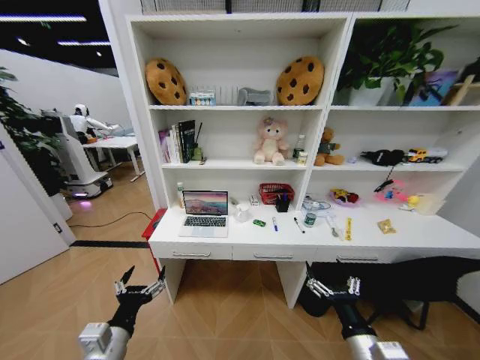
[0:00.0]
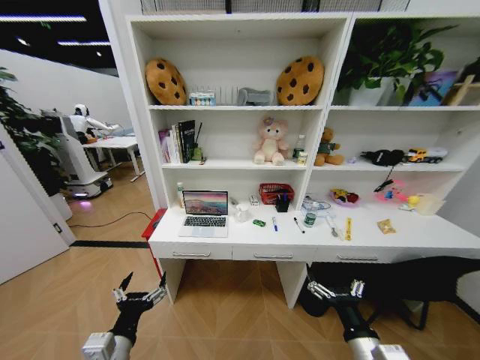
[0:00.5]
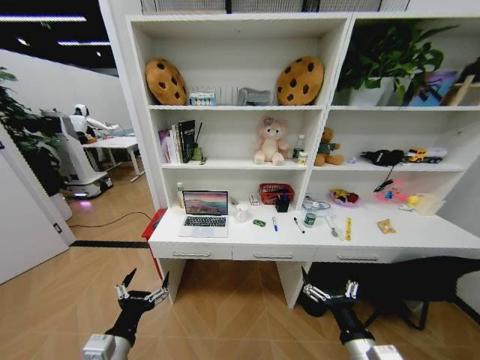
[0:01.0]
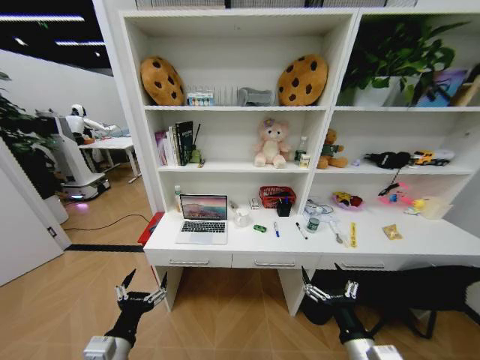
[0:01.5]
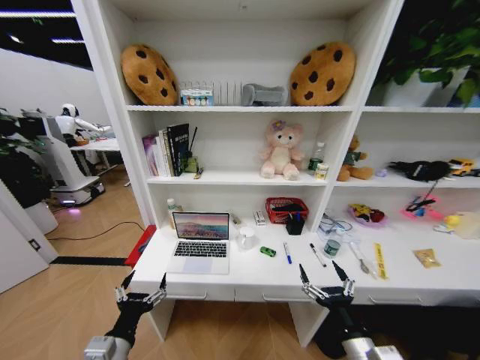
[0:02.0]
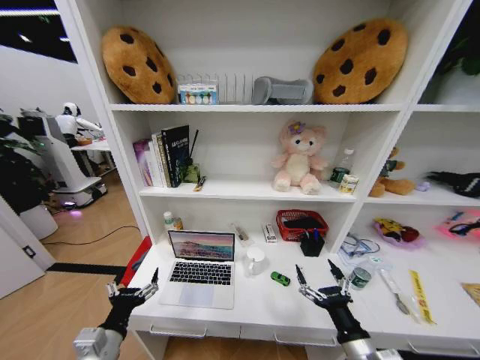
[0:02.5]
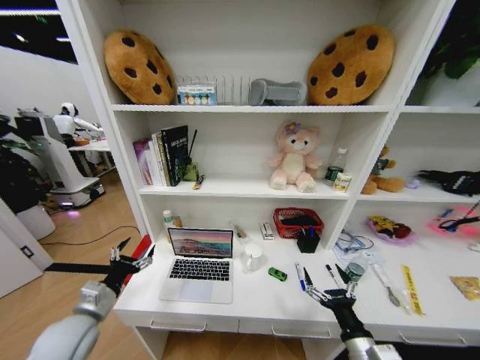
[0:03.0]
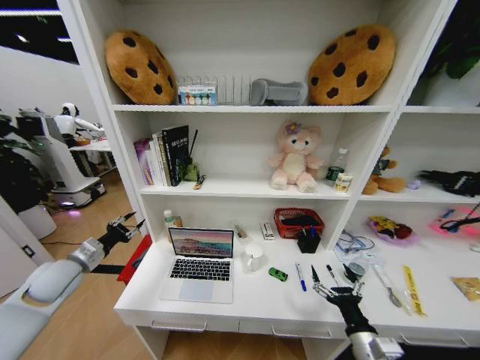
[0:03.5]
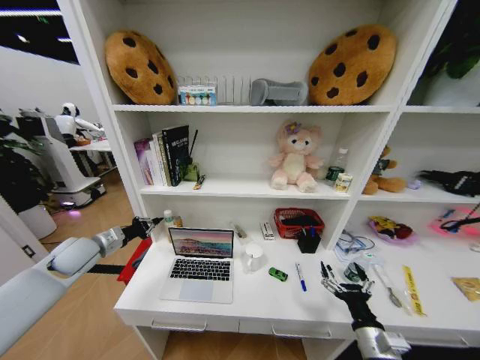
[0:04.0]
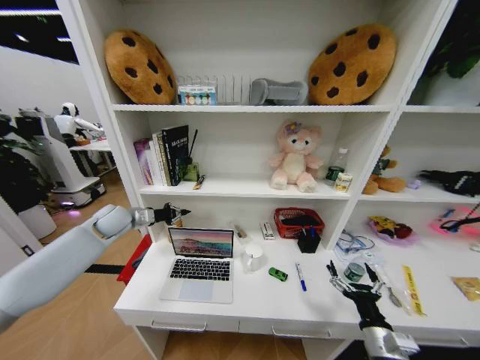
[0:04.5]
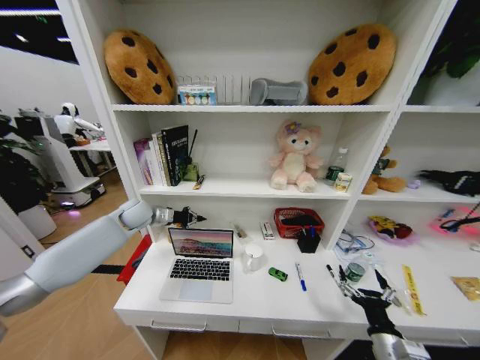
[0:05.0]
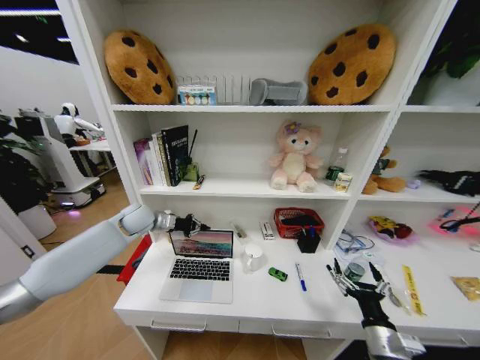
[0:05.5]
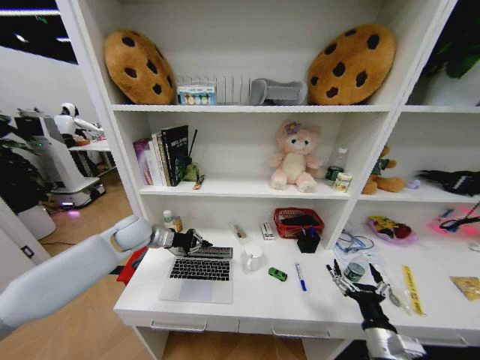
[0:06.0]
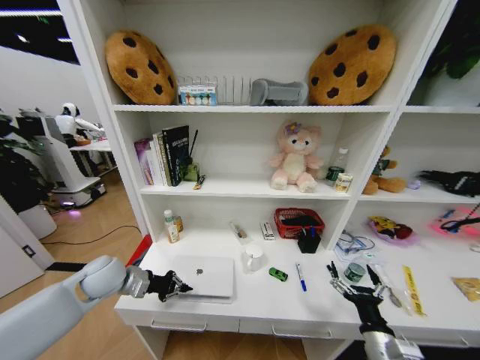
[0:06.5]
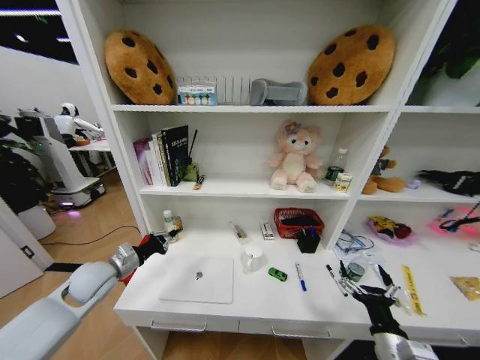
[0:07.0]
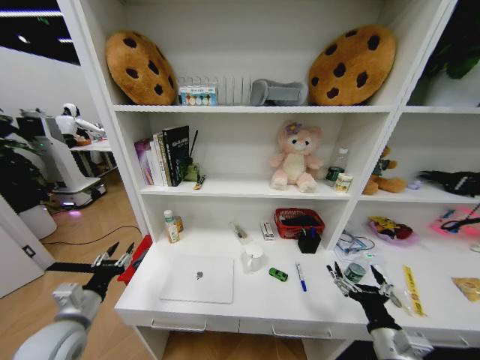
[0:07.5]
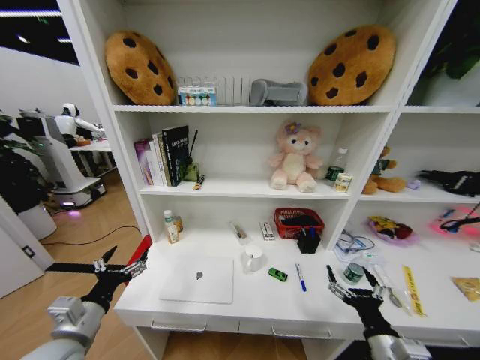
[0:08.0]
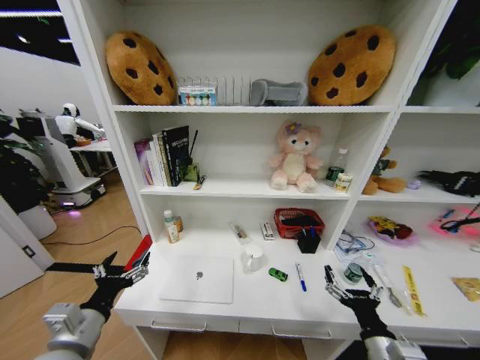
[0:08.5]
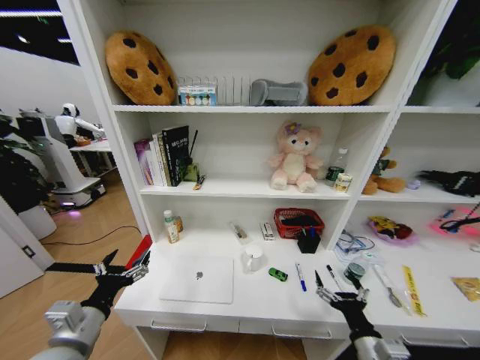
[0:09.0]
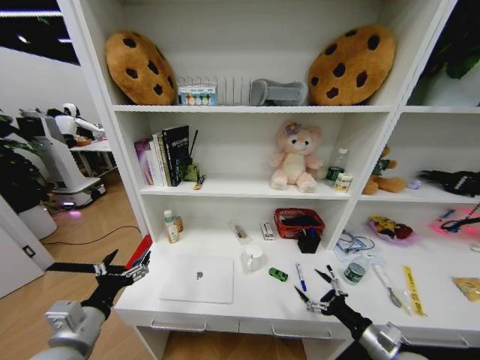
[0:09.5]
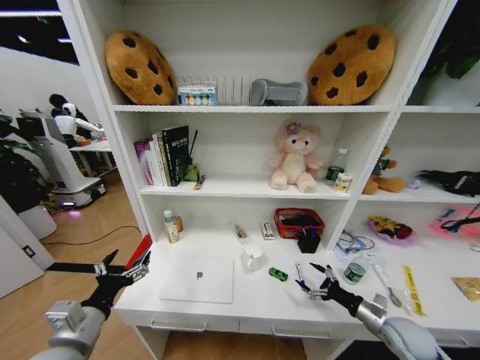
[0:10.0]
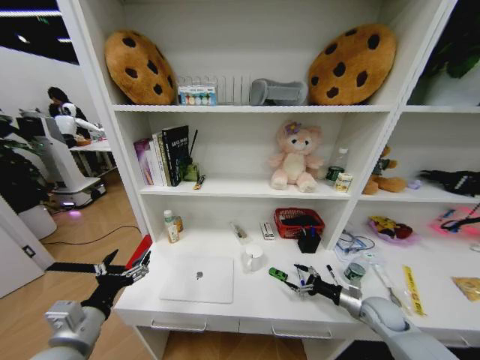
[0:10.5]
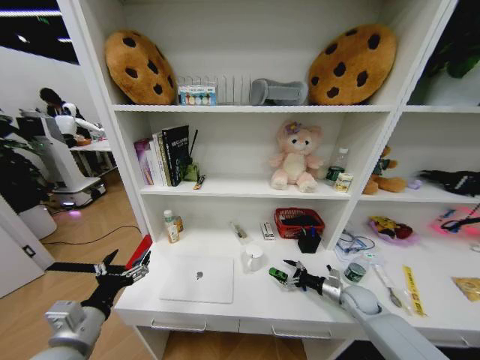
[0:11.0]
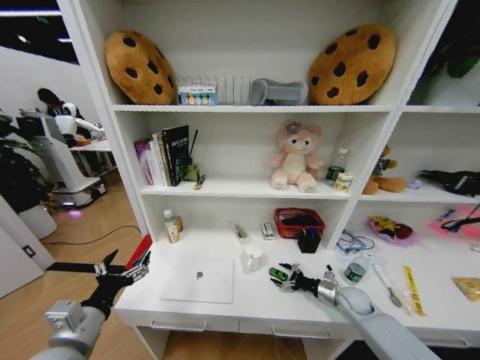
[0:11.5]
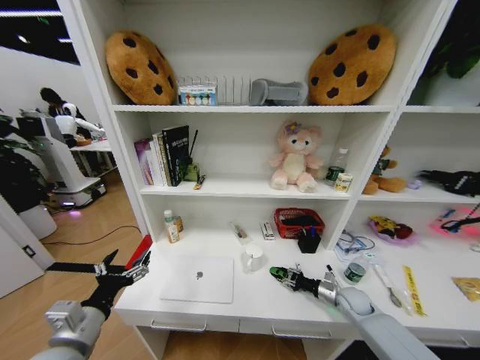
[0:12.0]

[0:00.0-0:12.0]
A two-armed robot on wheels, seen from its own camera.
Task of the whole recording: Organize the objects on the table.
2.0 to 4.0 s: The right gripper goes approximately 5 cm to the right. The left gripper goes about 30 cm forward and to the left, and closes up.
4.0 to 6.0 s: The left gripper moves to the right, roughly 15 cm.
6.0 to 8.0 s: The left gripper heads backward, covering roughly 25 cm, and opens.
8.0 to 10.0 s: The right gripper travels to the right, forward and downward by about 20 cm.
10.0 to 12.0 s: The right gripper shifts about 15 cm forward and downward, and closes up.

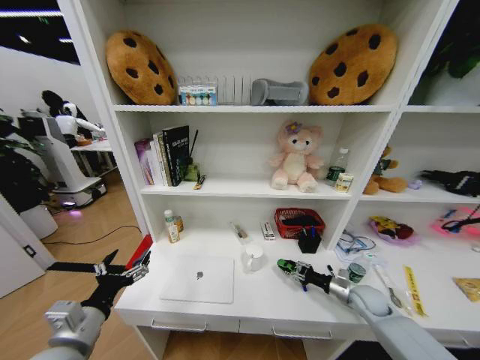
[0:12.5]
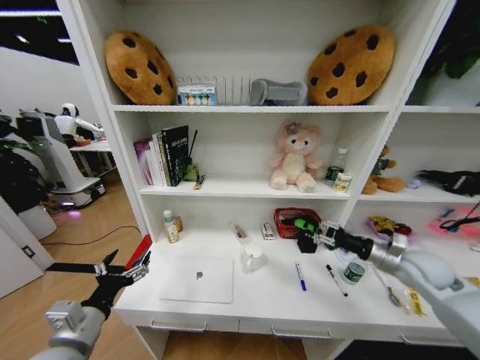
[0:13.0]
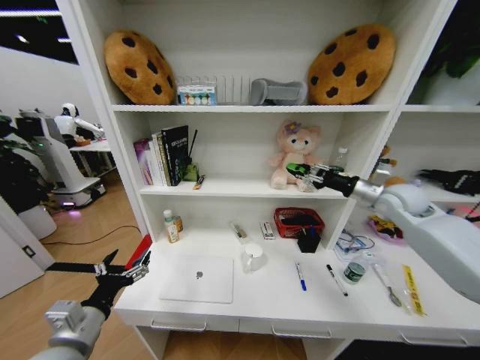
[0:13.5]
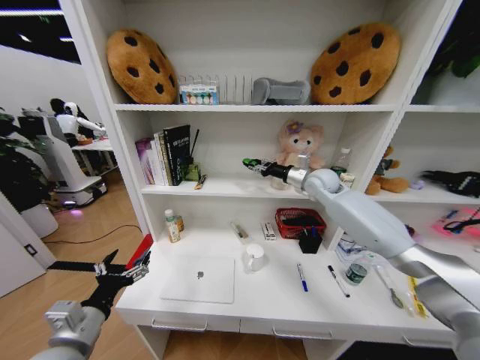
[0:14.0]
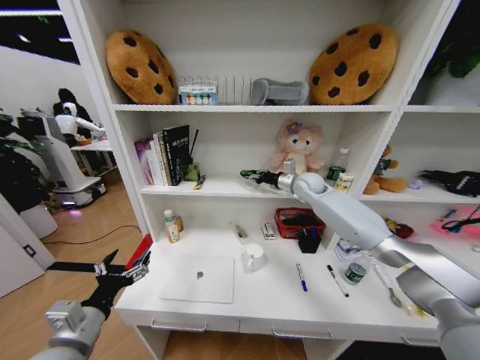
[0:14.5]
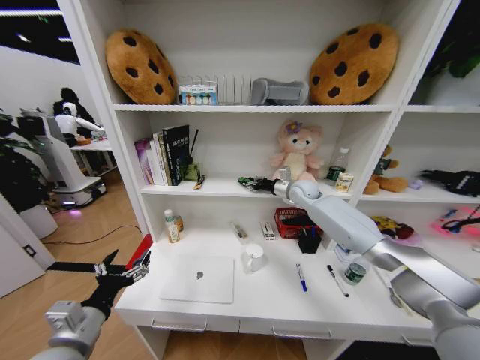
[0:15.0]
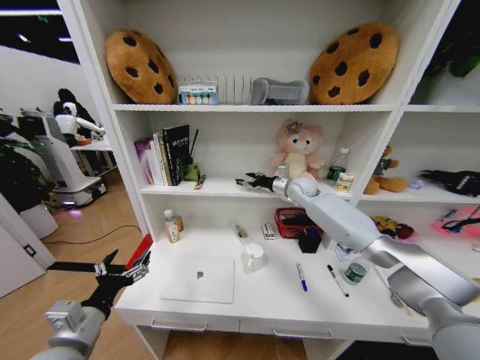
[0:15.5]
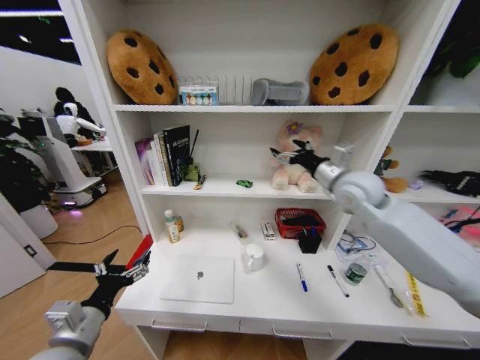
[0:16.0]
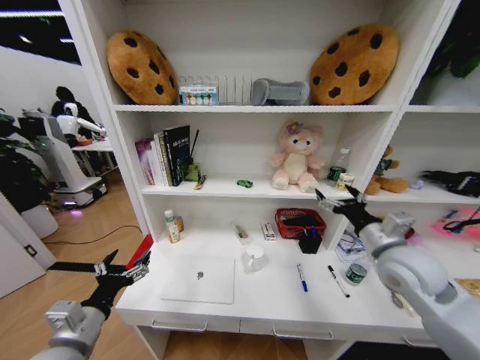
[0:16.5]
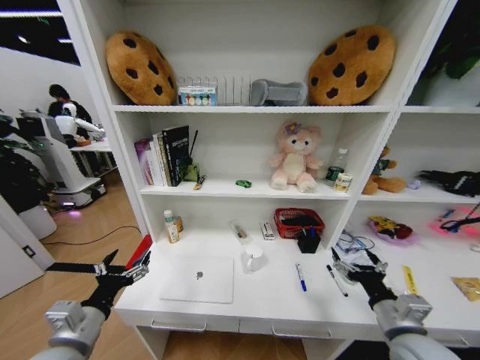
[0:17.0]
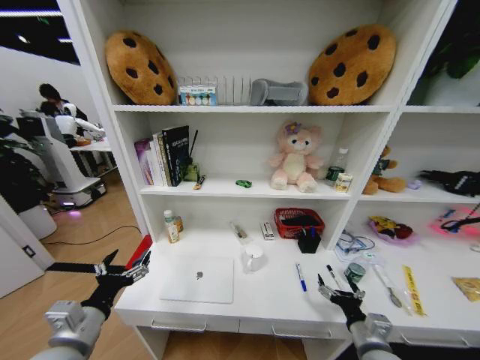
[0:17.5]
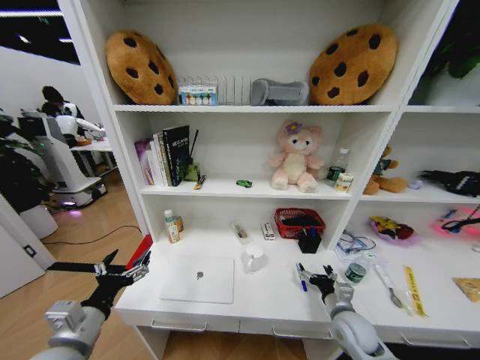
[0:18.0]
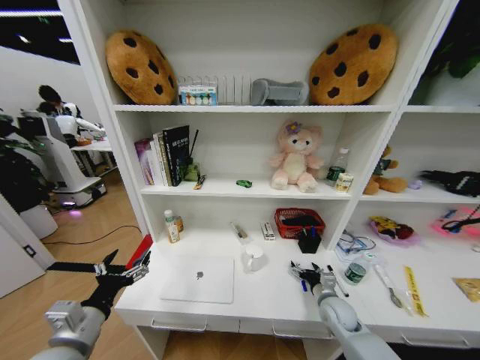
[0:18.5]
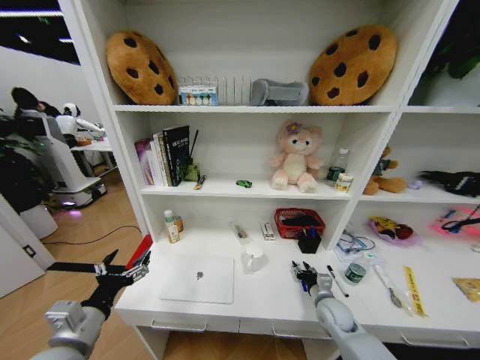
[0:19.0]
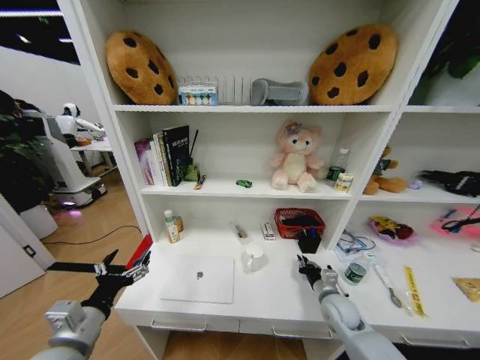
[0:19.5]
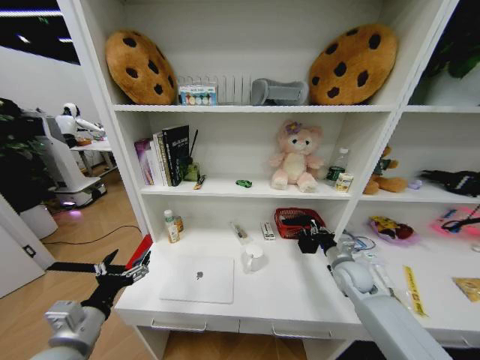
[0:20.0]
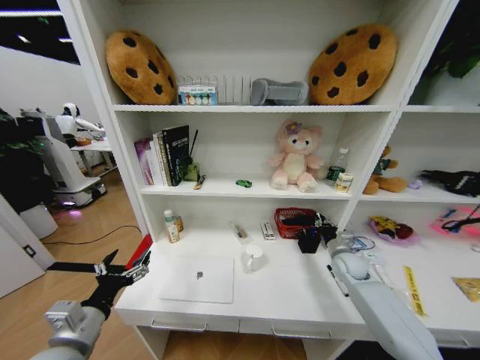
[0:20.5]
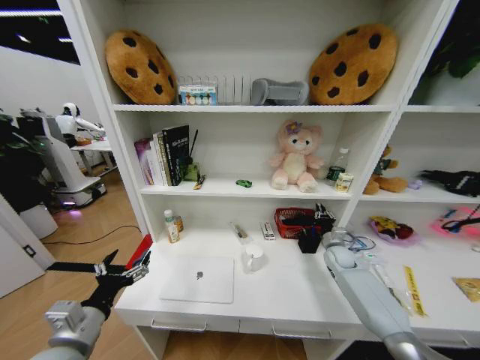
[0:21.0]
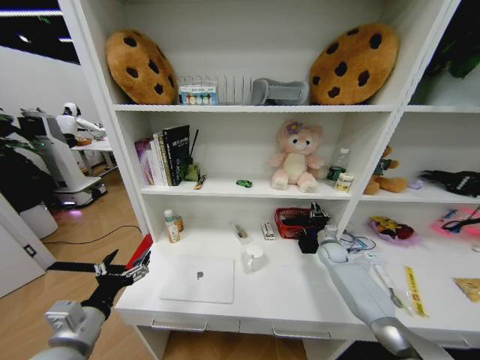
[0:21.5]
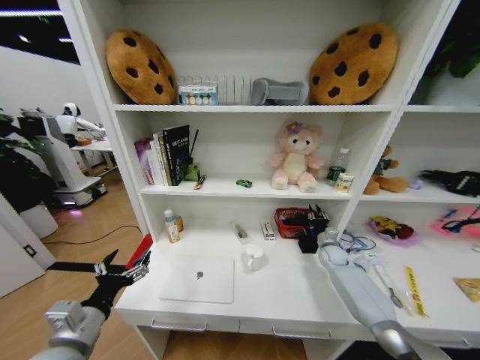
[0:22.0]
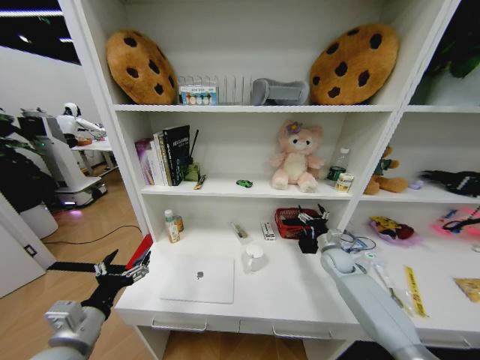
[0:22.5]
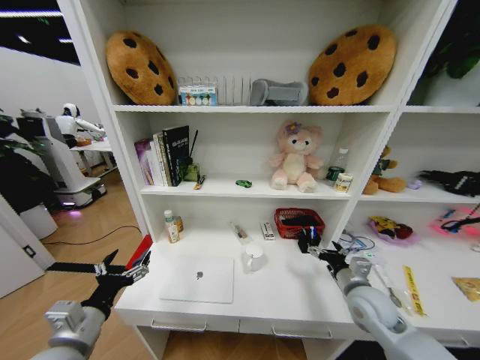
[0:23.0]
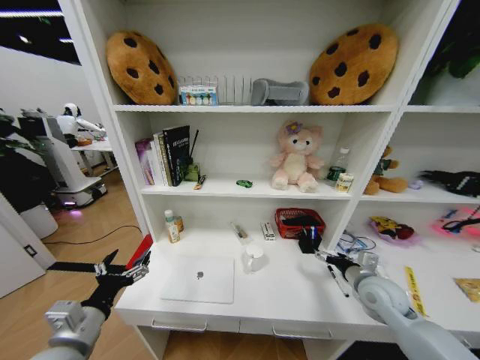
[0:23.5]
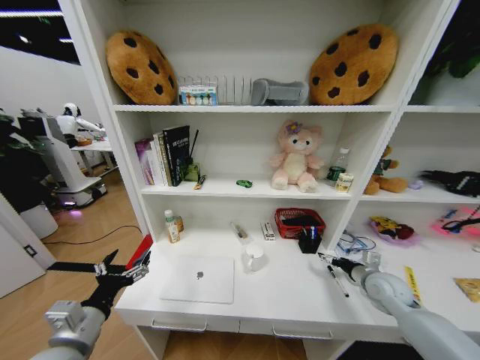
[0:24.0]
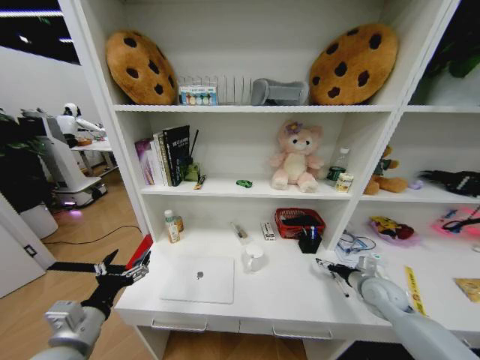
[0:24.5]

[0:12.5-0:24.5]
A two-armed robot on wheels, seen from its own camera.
Task of the whole recording: Organize the objects on the table.
12.5 to 14.5 s: The right gripper heads upward, forward and to the left, covering some 40 cm.
14.5 to 16.5 s: The right gripper moves backward, approximately 30 cm, and opens up.
16.5 to 18.5 s: The right gripper goes roughly 25 cm downward.
18.5 to 20.5 s: The right gripper shifts about 15 cm forward, upward and to the right, and closes.
20.5 to 22.5 s: The right gripper opens.
22.5 to 24.5 s: The right gripper moves backward, some 15 cm.

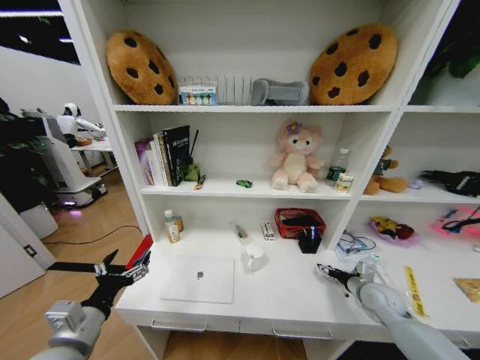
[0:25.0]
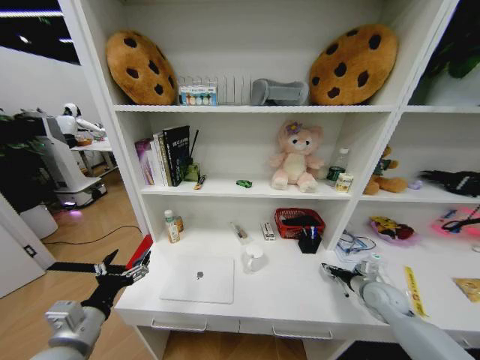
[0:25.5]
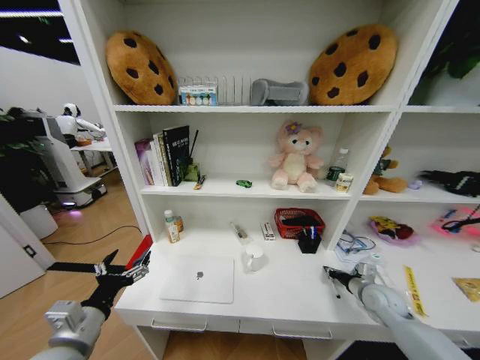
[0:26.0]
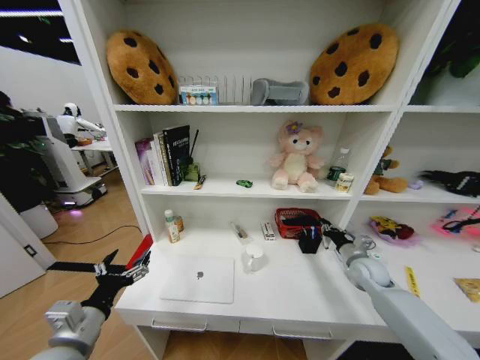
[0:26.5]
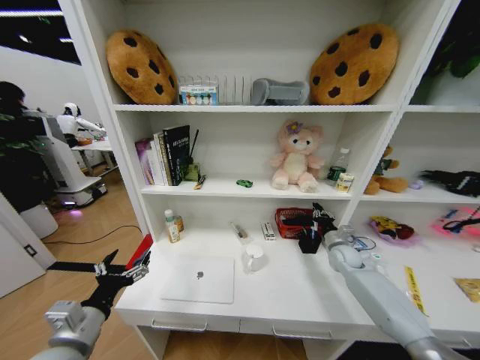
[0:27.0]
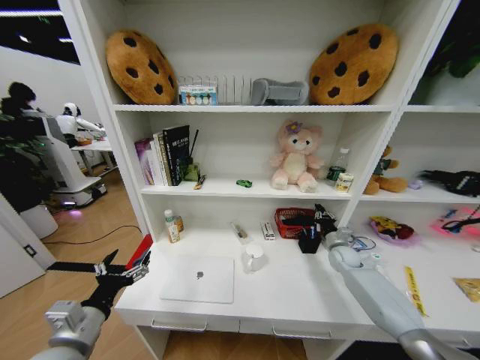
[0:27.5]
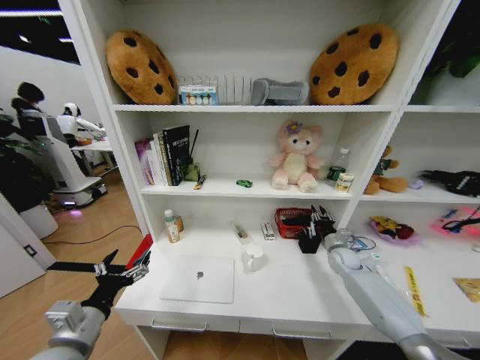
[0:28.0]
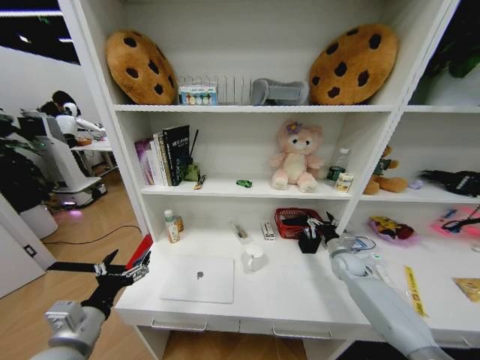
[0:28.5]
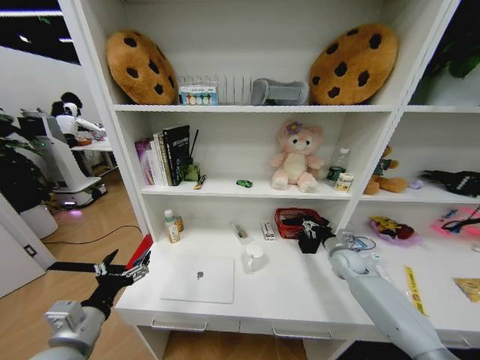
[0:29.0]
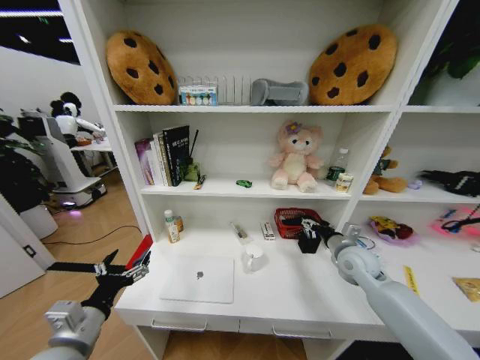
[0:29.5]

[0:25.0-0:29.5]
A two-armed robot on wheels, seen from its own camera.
Task of the whole recording: Organize the objects on the table.
25.0 to 27.0 s: The right gripper goes roughly 15 cm forward, and closes.
27.0 to 29.5 s: The right gripper travels upward, backward and to the left by about 15 cm, and opens up.
